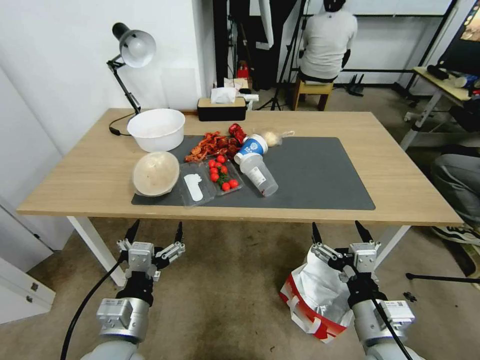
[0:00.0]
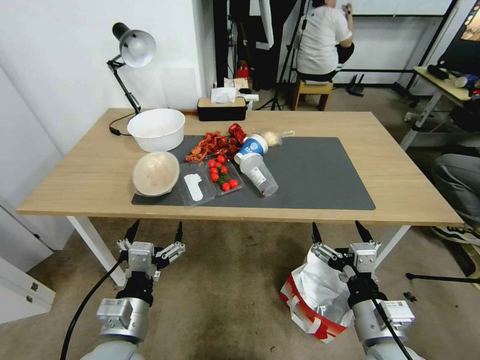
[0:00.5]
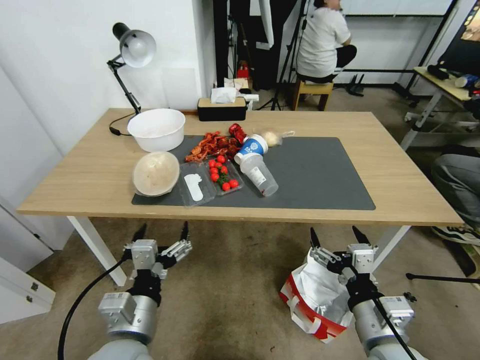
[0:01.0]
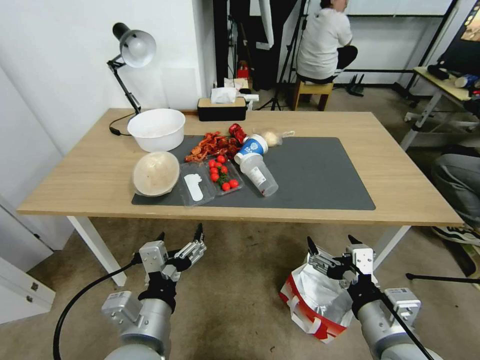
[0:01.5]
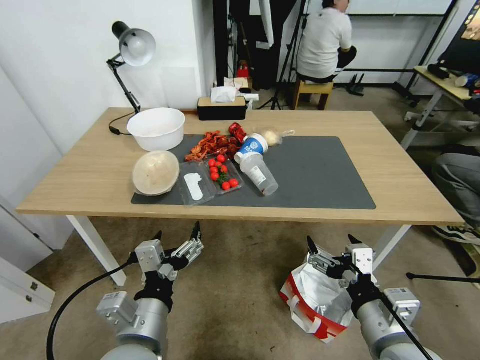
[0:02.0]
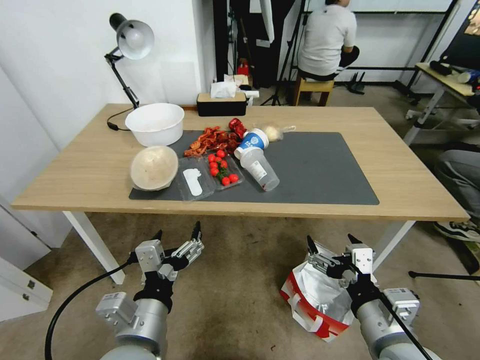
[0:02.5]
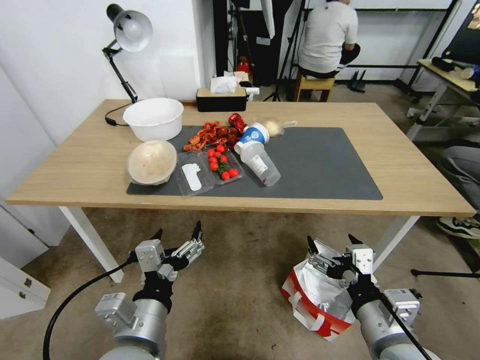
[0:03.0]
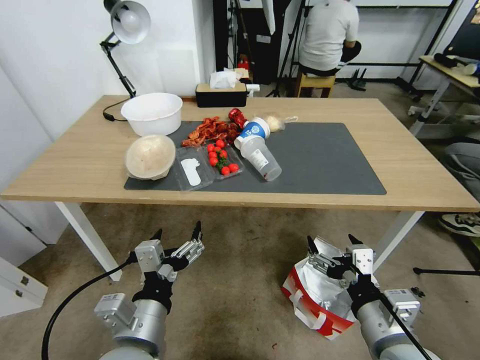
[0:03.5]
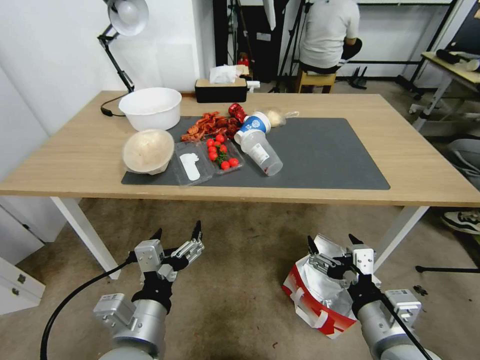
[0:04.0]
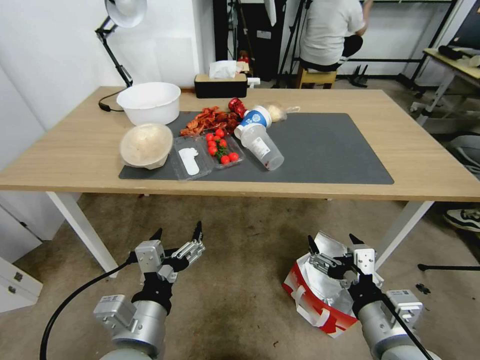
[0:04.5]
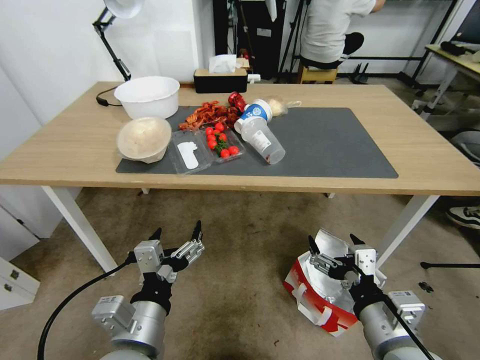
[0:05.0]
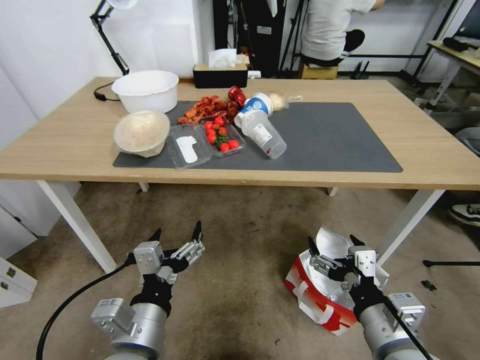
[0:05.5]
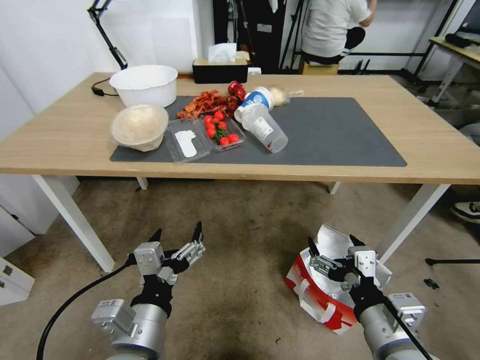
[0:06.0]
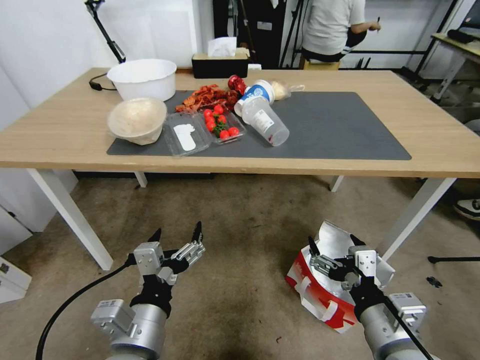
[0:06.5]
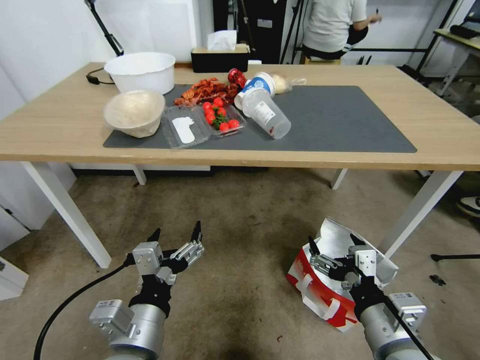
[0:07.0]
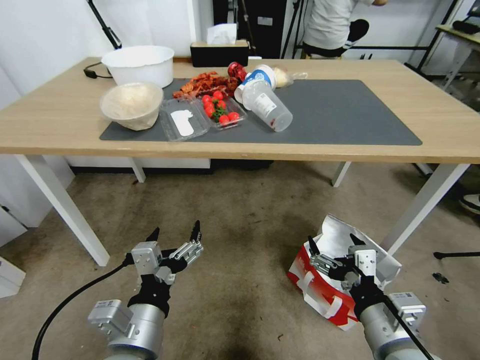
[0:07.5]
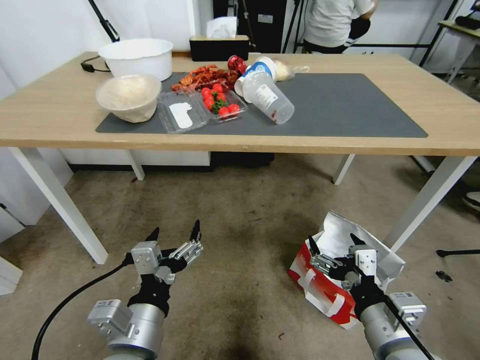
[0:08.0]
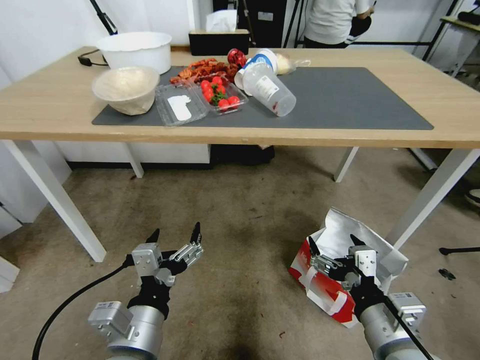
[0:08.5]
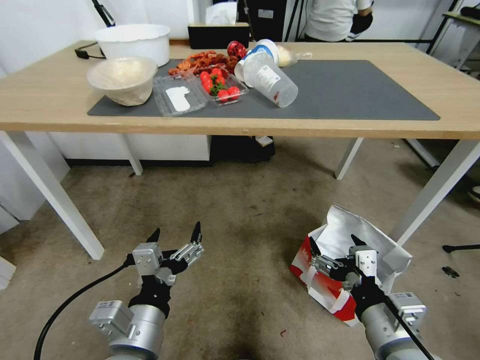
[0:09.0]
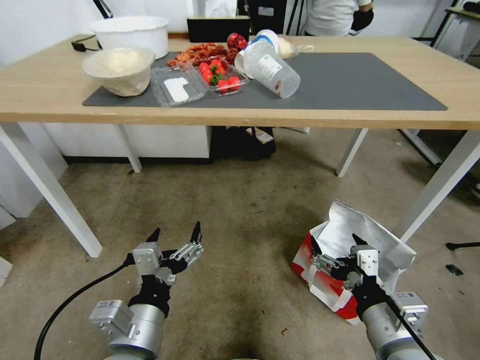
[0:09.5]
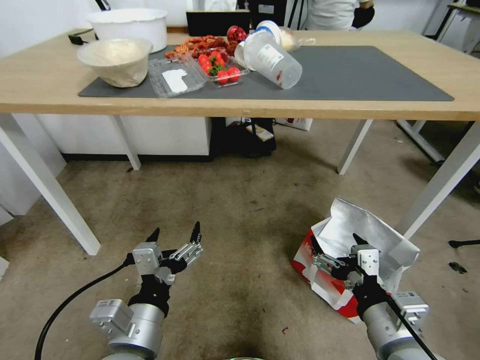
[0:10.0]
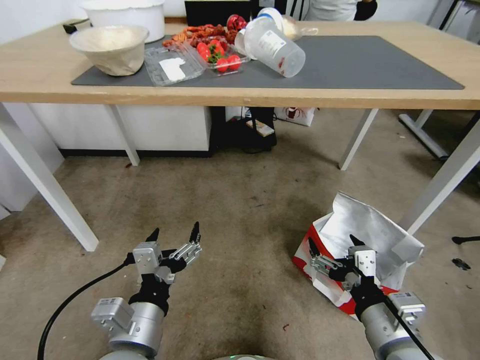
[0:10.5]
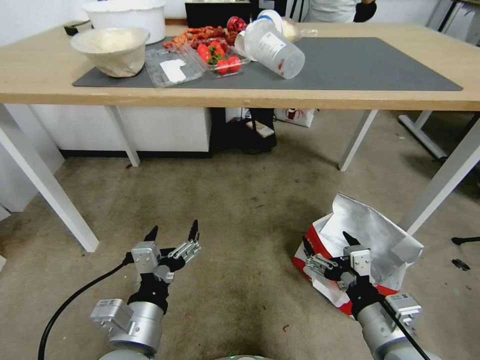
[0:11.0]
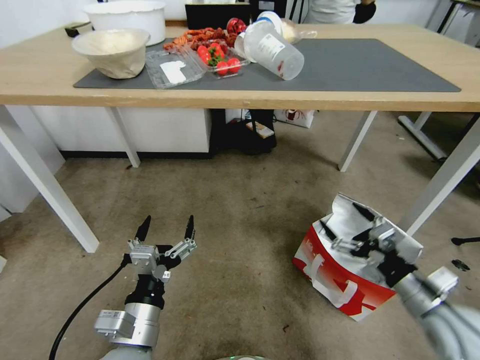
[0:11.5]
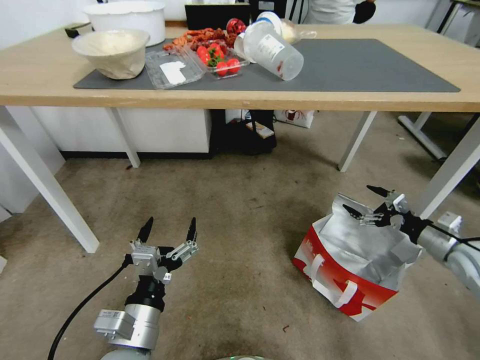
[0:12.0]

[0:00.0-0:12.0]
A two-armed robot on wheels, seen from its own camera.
Task of the whole recording: Pick up the food delivery bag from the floor and place it on the table.
0:10.0 to 0:12.0: The right gripper goes about 30 cm to the right and forward.

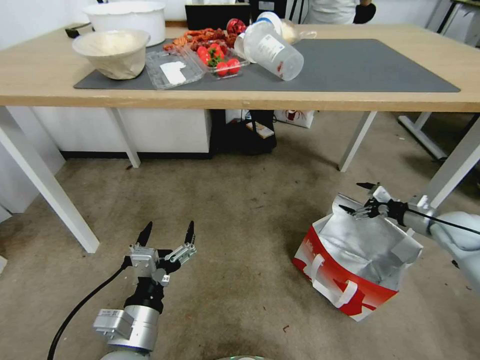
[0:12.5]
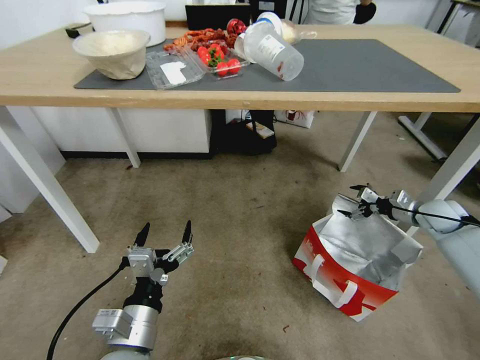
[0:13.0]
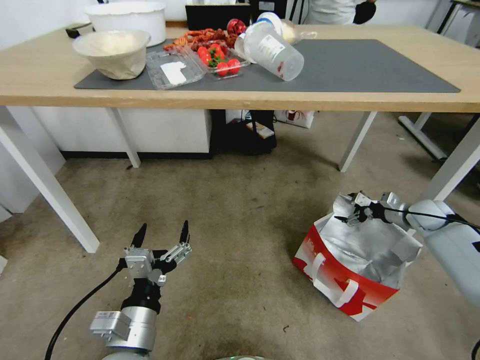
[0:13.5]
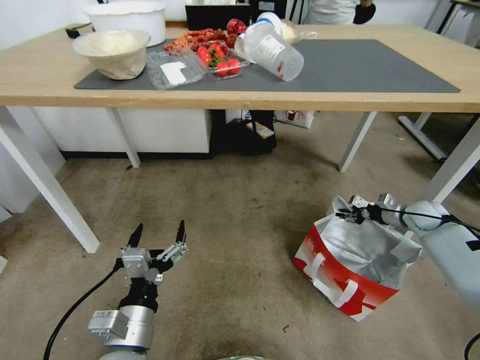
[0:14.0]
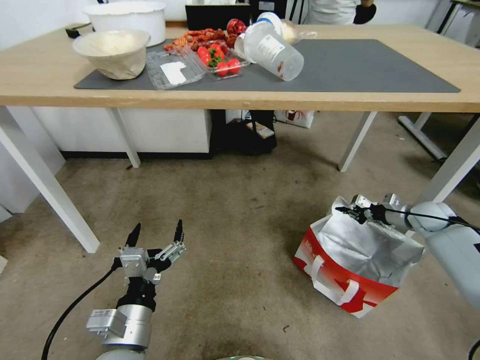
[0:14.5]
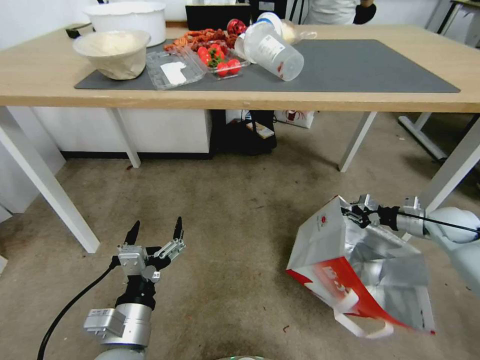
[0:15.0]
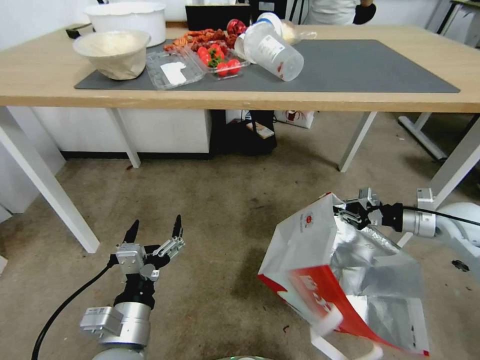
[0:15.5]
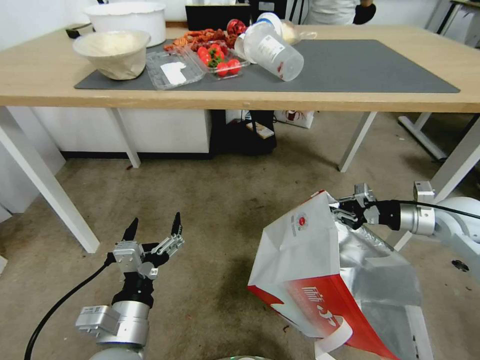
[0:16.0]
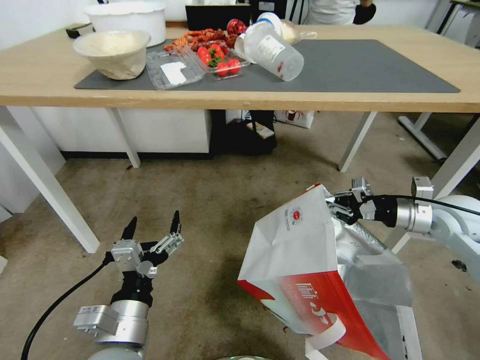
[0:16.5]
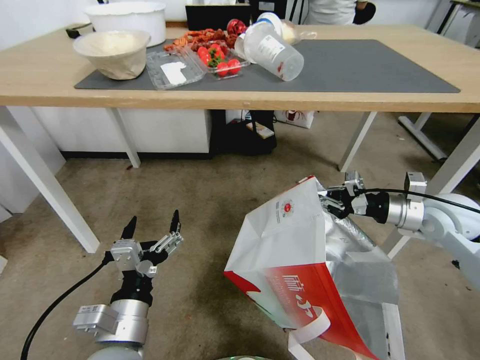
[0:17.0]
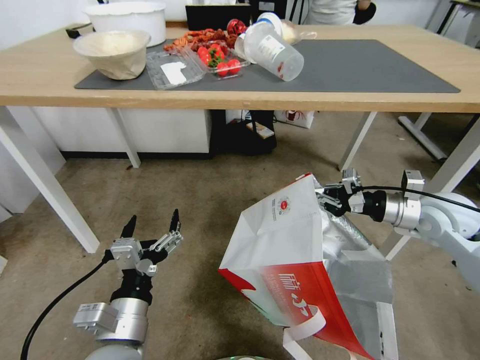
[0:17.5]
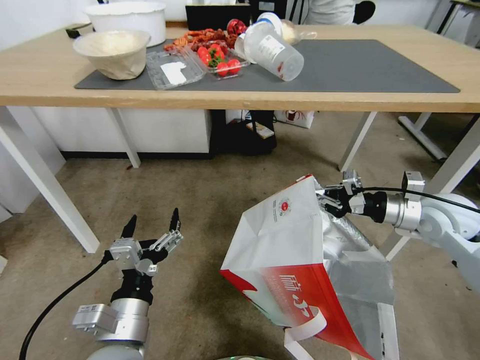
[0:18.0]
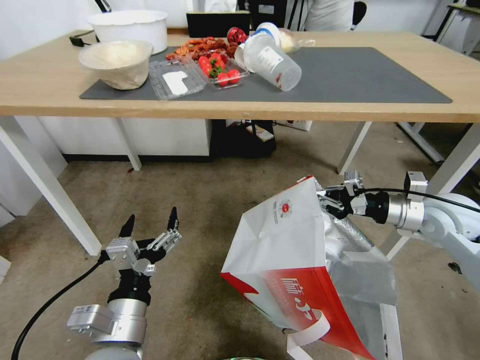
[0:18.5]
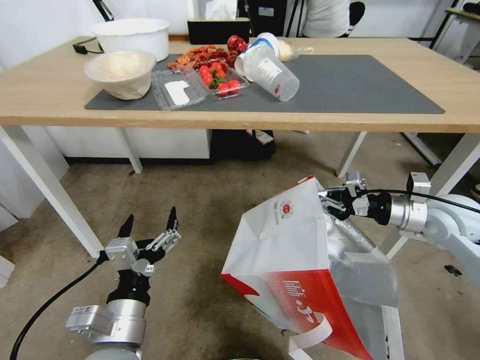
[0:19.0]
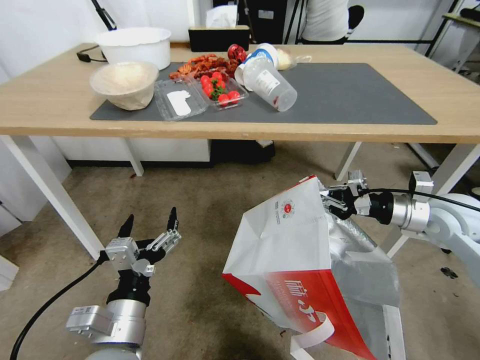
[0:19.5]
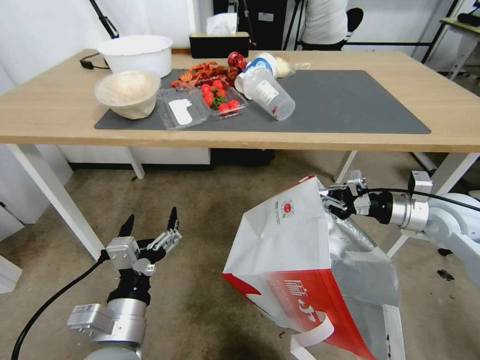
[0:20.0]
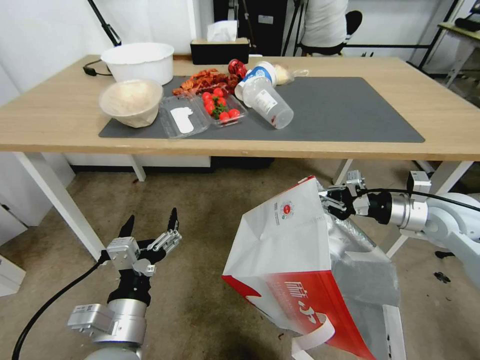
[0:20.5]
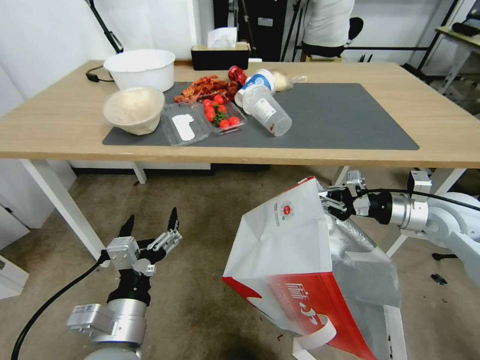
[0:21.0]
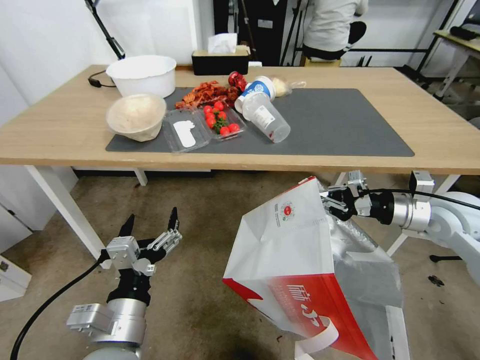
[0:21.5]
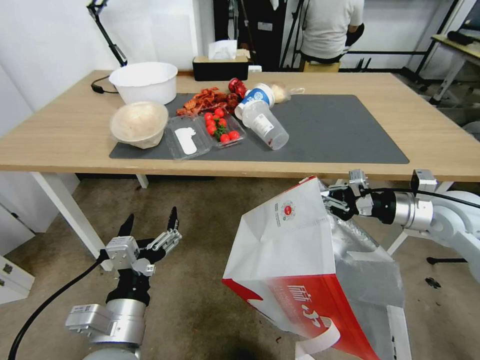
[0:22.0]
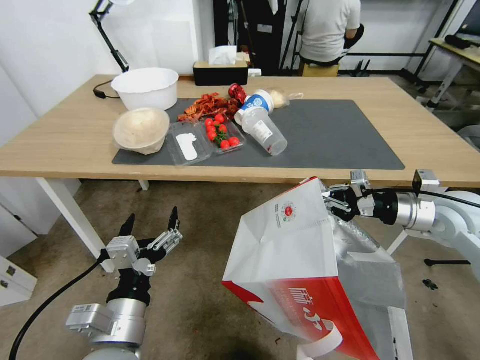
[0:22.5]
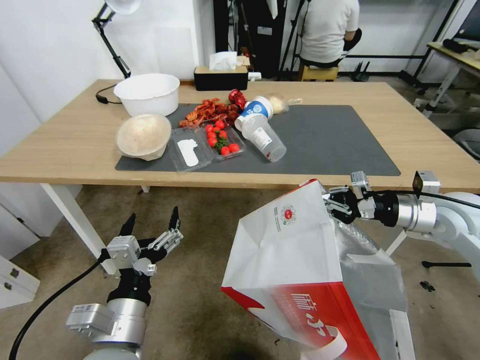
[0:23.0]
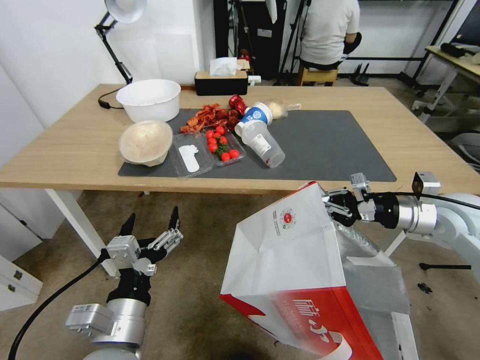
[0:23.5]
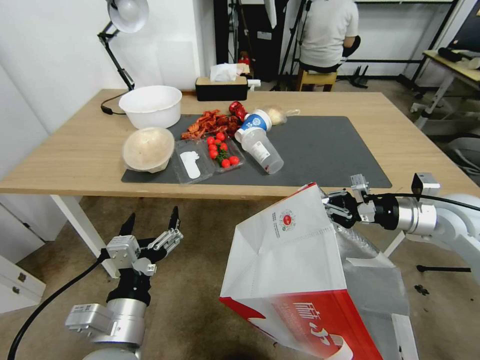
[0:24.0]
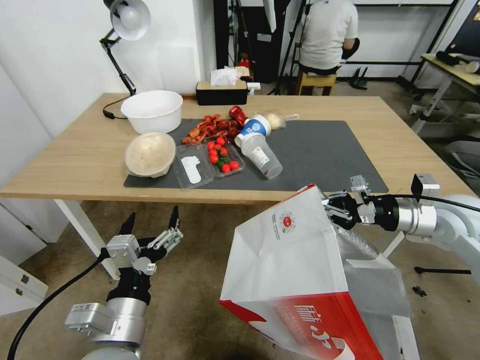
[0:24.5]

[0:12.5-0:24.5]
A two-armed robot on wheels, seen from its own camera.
Task of the whole recording: Pick up the food delivery bag from the floor and place it on the table.
0:12.5 to 0:14.5: The right gripper moves forward and downward, roughly 10 cm, and closes.
0:14.5 to 0:16.5: The right gripper is displaced upward, to the left and backward by some 20 cm.

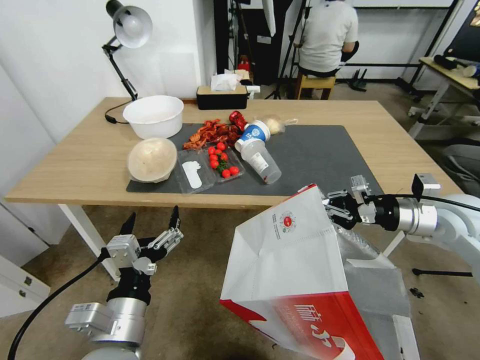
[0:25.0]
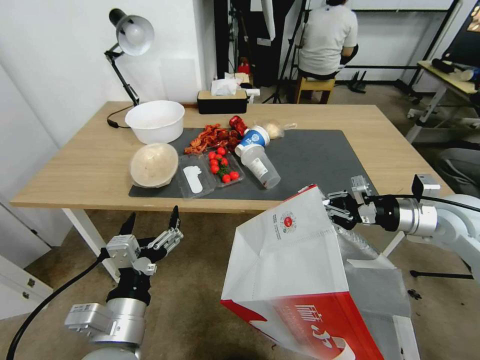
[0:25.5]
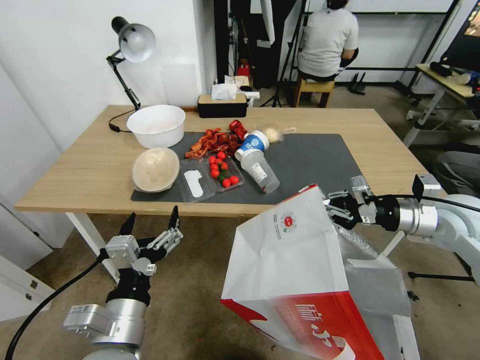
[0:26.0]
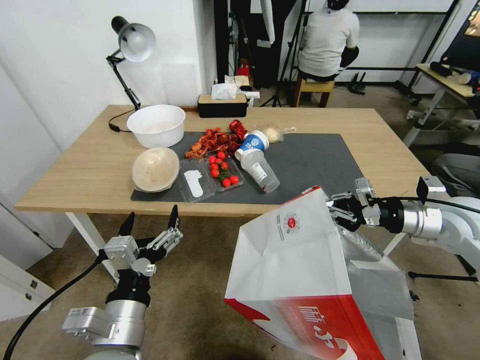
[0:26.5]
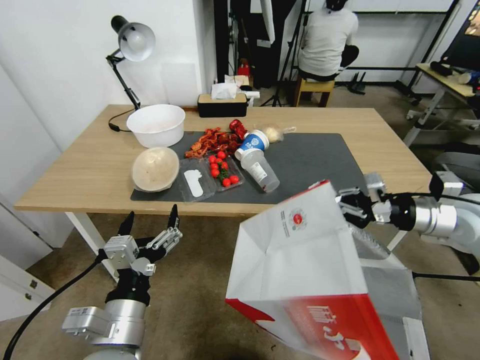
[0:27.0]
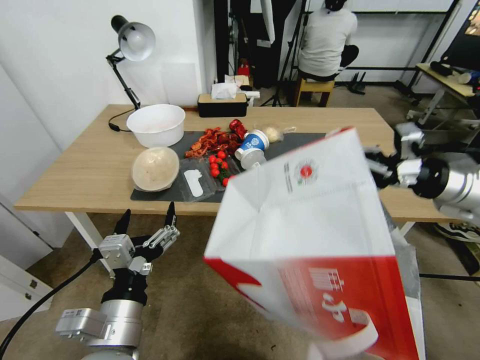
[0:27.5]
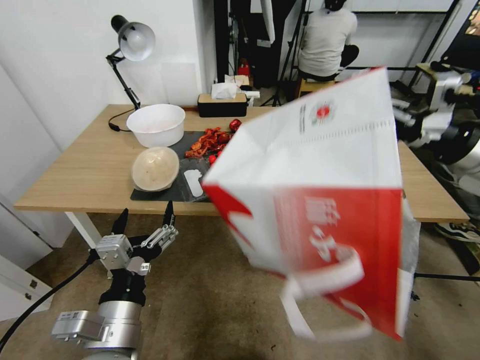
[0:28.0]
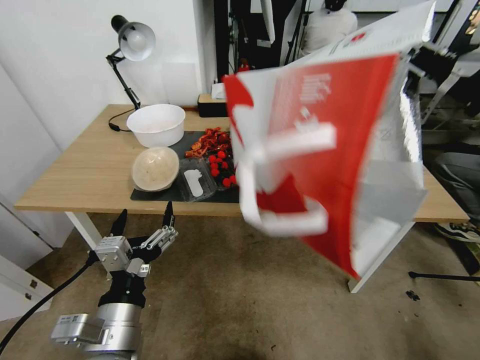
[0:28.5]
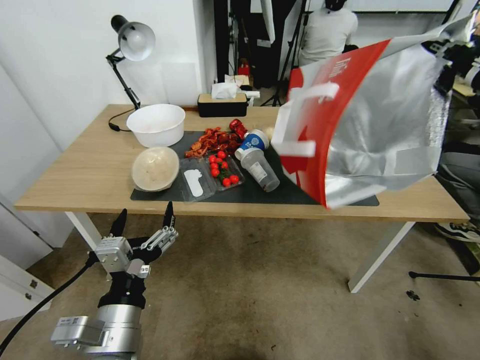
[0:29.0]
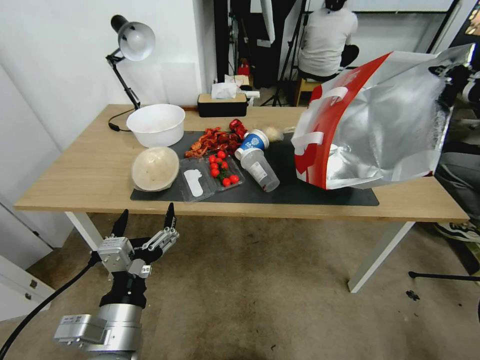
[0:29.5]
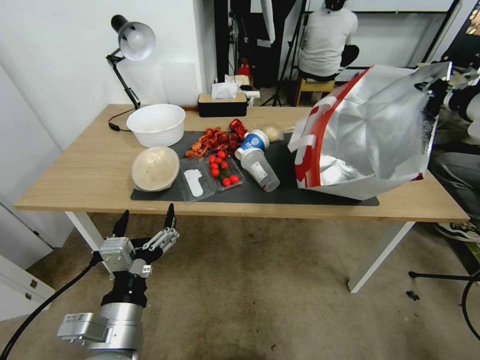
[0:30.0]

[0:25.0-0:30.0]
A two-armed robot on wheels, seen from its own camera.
Task of the whole recording: Pick up the food delivery bag from the floor and place it on the table.
0:25.0 to 0:27.5: The right gripper shifts approximately 10 cm upward.
0:27.5 to 0:30.0: The right gripper shifts approximately 10 cm upward and forward.
